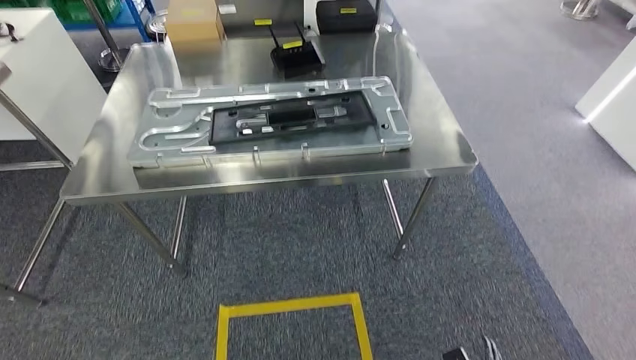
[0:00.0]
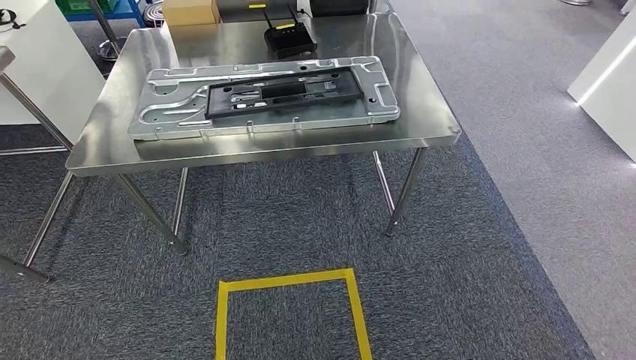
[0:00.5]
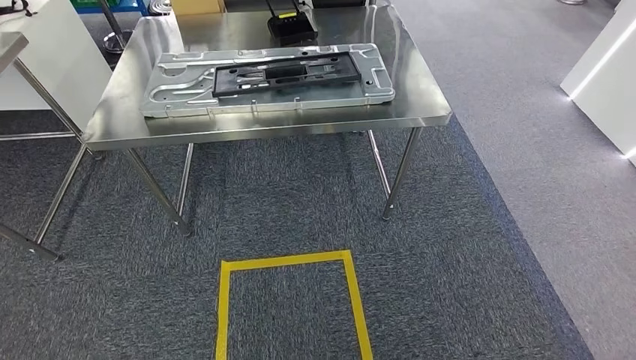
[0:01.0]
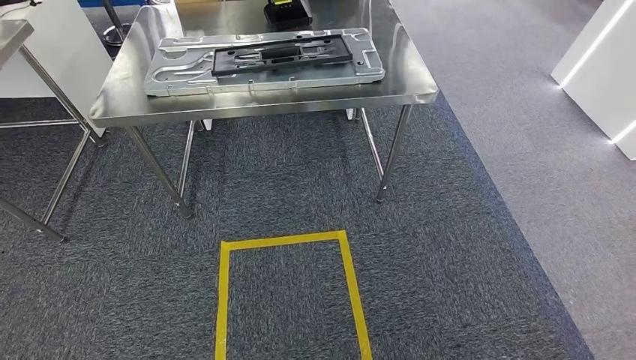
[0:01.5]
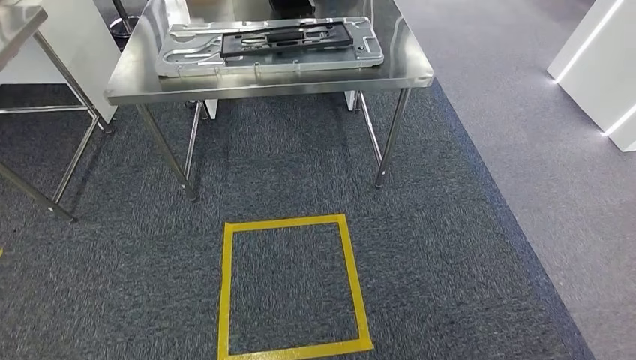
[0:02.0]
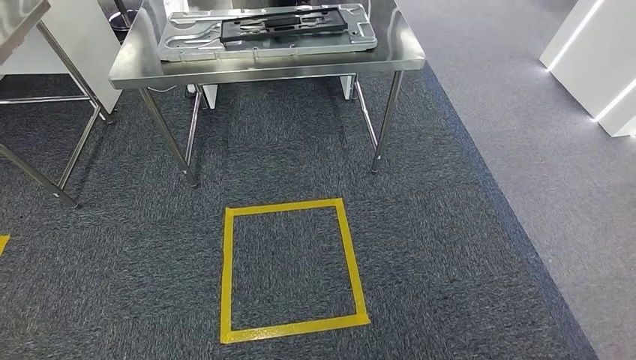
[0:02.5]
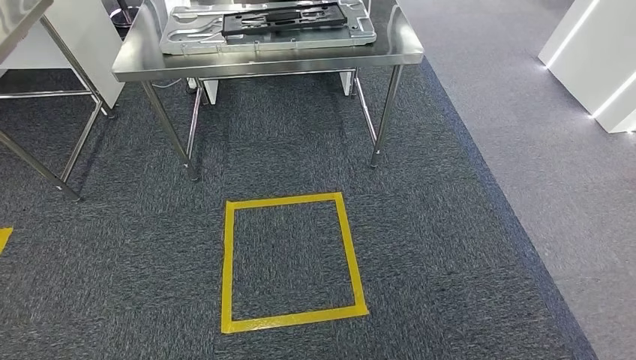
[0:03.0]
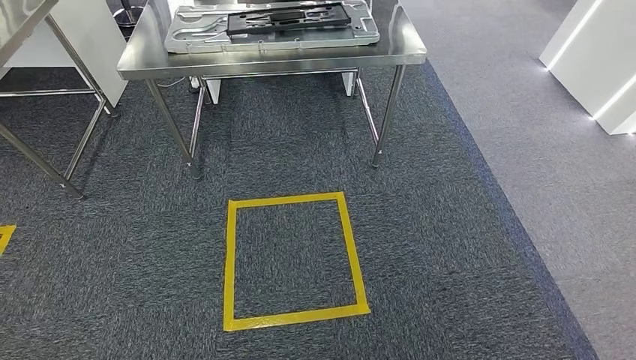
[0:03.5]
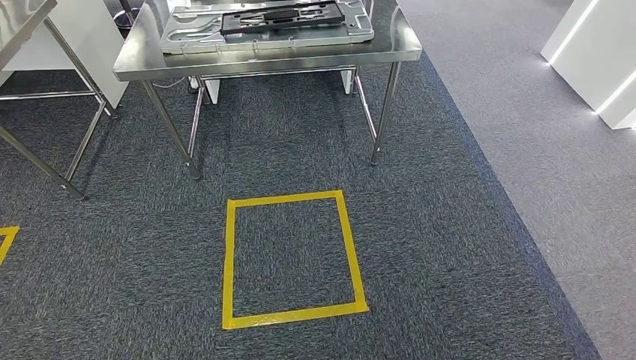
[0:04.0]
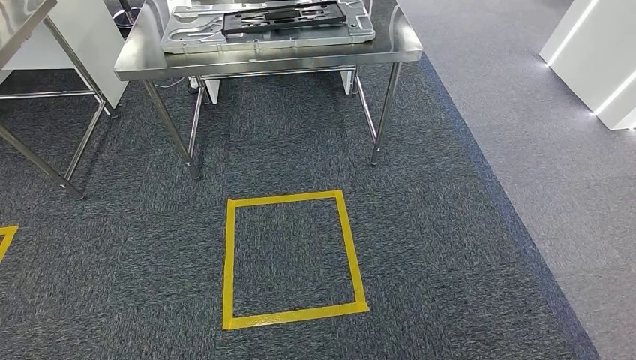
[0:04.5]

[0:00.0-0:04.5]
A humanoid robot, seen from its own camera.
Step, 0:00.0 to 0:01.5: Move to the initial position of the shelf.
0:02.0 to 0:04.5: The hands move only a little.
